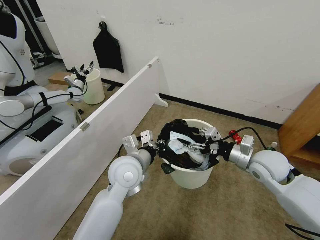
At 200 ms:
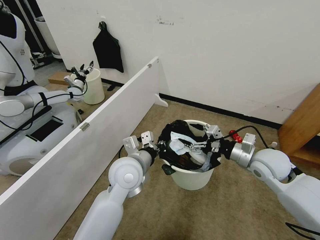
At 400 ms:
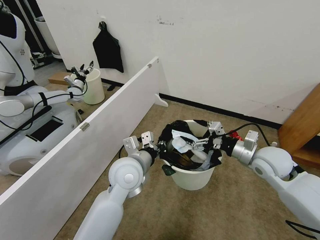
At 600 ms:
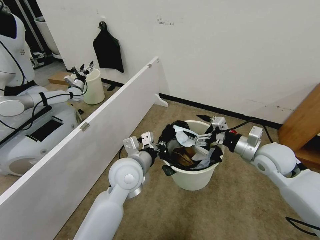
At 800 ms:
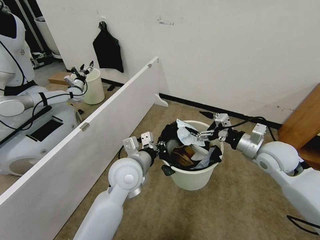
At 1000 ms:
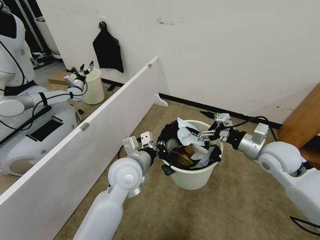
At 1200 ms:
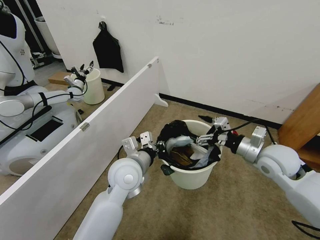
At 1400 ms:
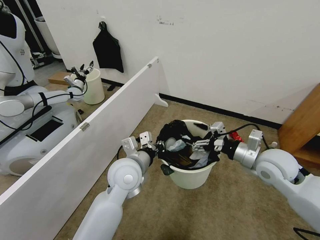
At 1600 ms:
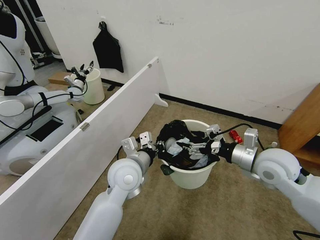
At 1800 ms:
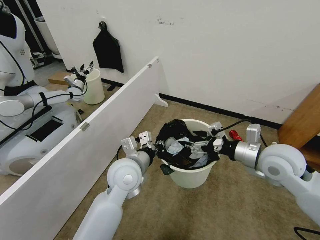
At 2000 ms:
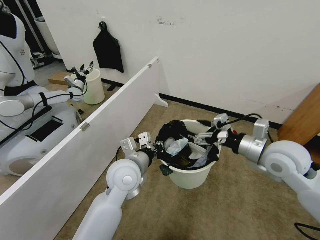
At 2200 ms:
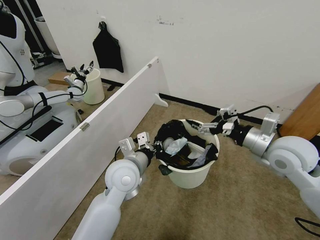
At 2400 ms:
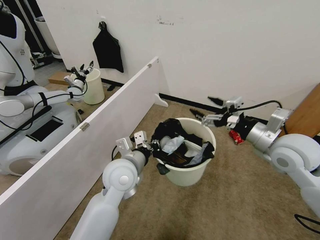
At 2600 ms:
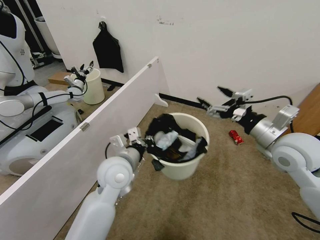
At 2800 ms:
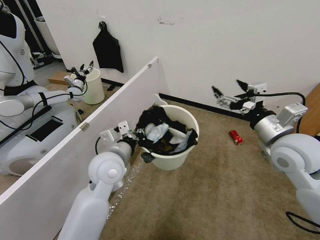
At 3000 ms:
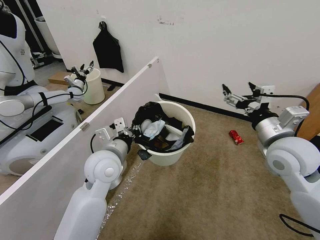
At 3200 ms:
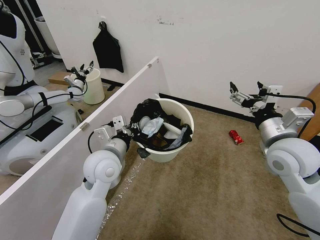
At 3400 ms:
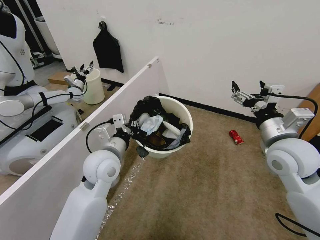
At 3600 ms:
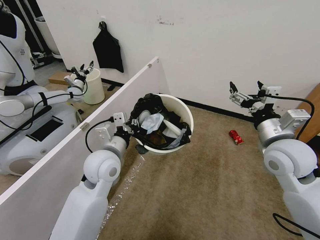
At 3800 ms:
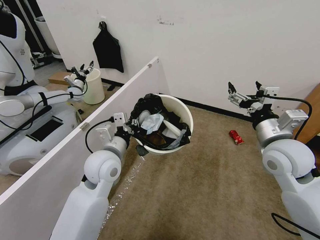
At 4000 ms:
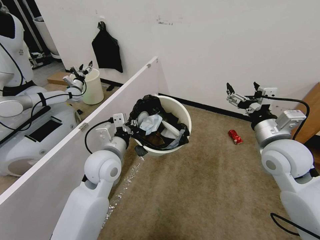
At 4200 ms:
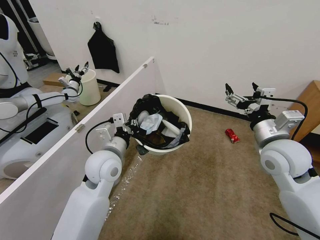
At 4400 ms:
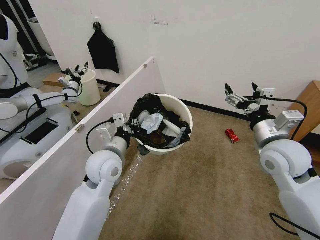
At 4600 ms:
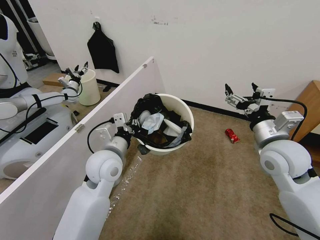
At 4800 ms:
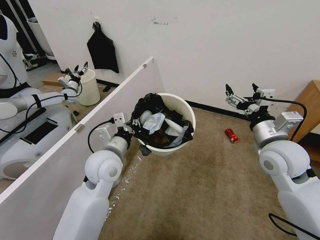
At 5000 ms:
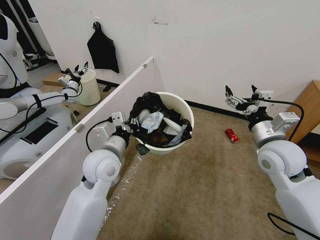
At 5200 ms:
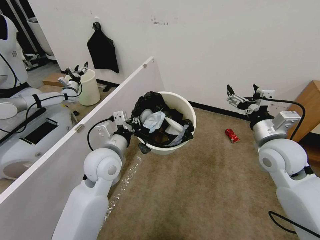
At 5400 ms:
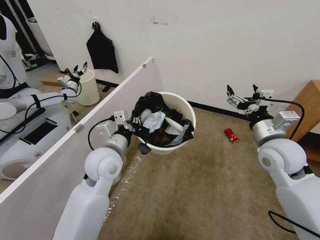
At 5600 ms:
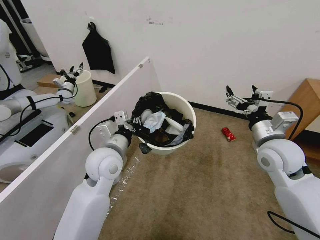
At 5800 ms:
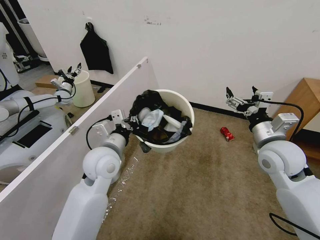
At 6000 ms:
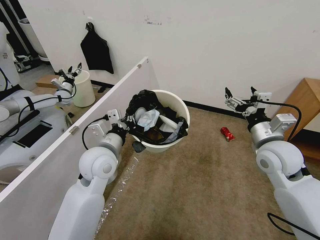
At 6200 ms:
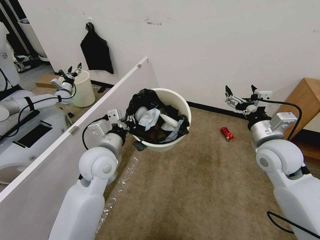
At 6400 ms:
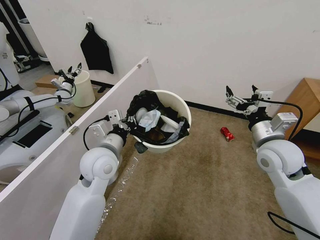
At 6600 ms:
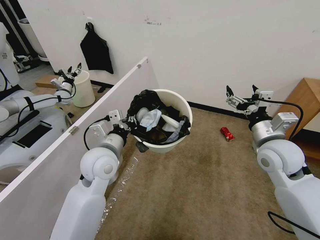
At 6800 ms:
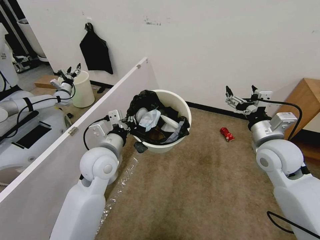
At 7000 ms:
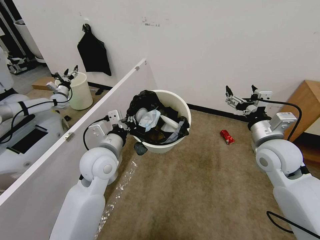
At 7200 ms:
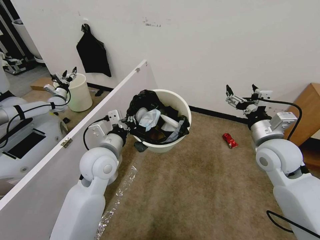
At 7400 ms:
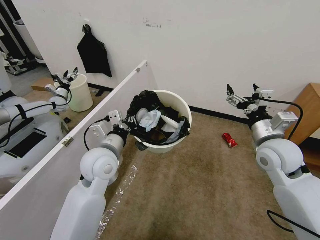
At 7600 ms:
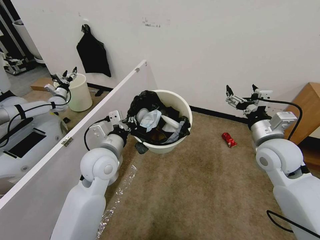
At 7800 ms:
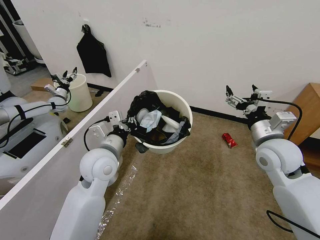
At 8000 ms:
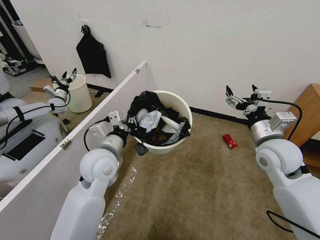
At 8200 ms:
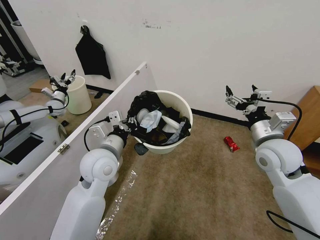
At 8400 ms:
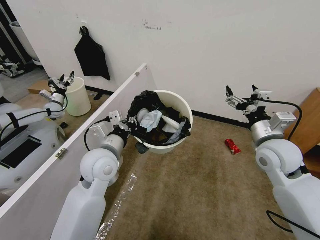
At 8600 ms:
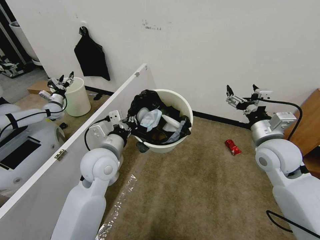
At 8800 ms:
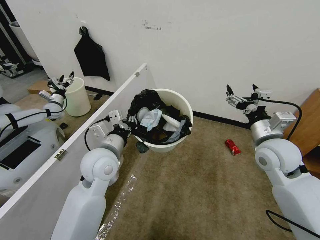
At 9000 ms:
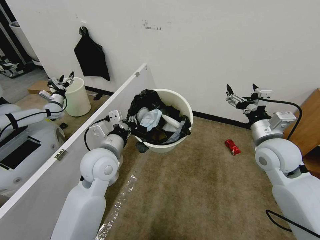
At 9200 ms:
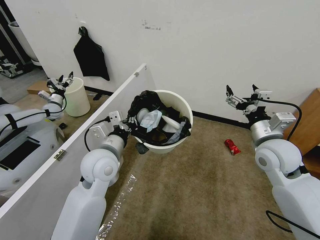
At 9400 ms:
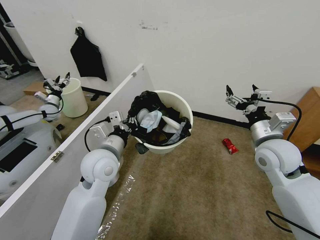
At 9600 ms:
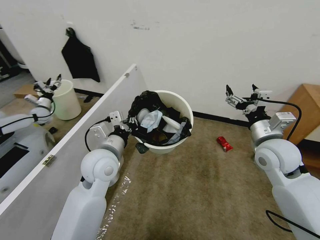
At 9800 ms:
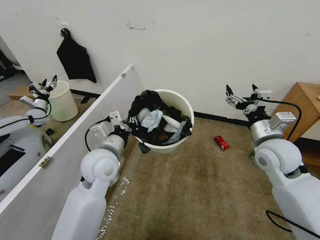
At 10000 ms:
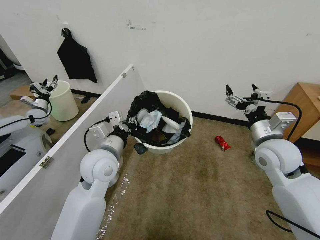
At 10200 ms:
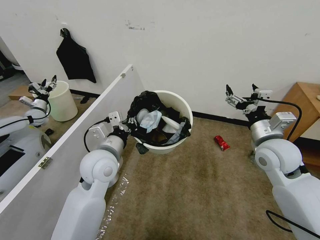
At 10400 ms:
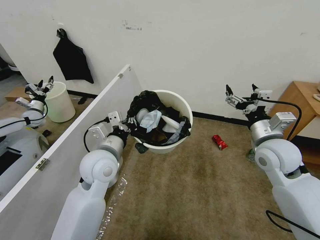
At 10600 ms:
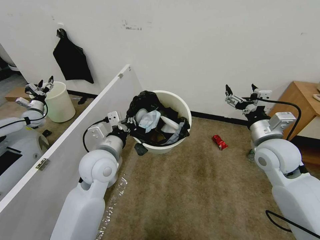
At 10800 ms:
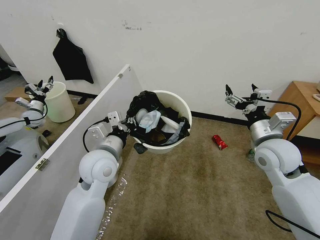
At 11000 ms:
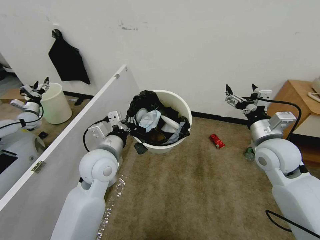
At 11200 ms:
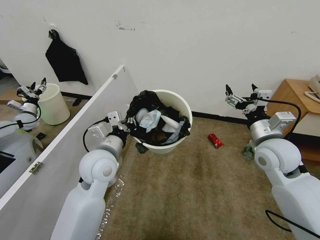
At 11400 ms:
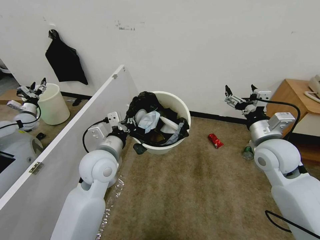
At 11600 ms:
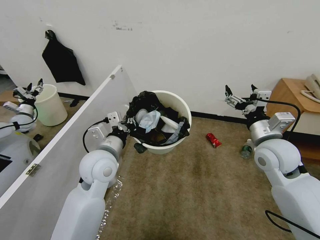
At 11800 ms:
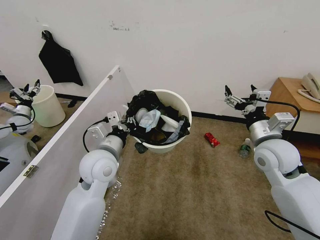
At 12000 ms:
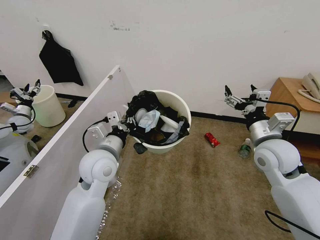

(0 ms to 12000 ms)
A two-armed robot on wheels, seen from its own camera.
Task of the whole recording: Pick up the trash bin, then pick up the garbage from the floor and place it into the trash bin.
0 ms - 1600 ms: The right gripper opens its fingers.
1600 ms - 3000 ms: The left gripper heads to the left, covering roughly 5 cm, while the right gripper moves upward, about 5 cm.
6000 ms - 9000 ms: The two grippers keep their place.
10400 ms - 12000 ms: Neither gripper changes place.

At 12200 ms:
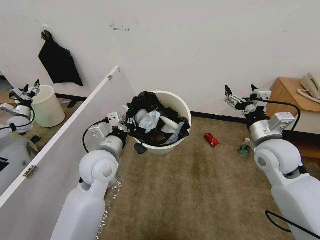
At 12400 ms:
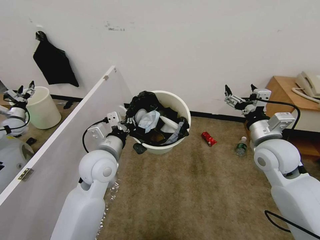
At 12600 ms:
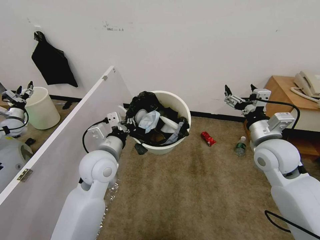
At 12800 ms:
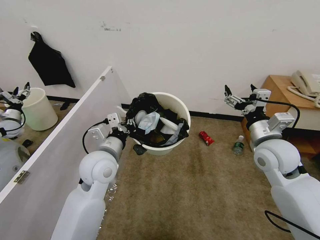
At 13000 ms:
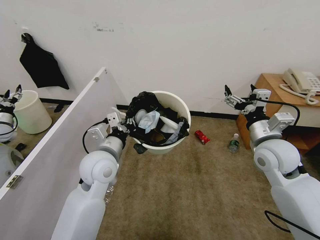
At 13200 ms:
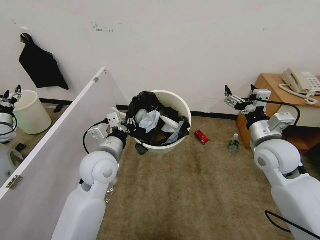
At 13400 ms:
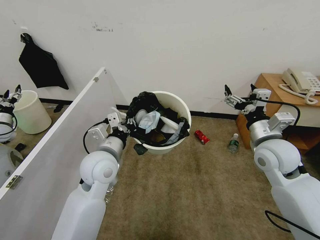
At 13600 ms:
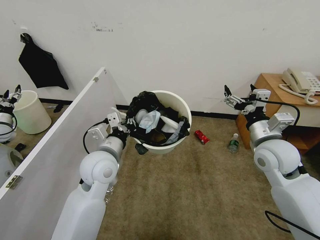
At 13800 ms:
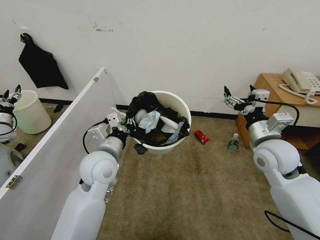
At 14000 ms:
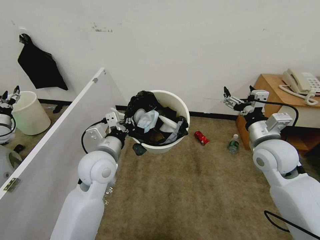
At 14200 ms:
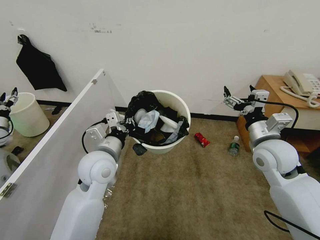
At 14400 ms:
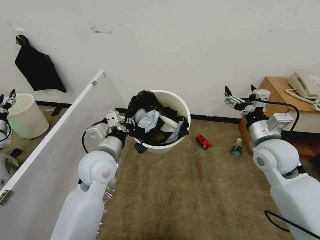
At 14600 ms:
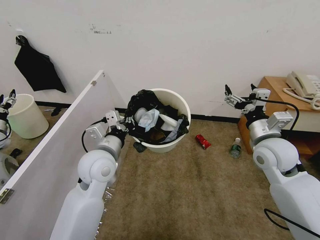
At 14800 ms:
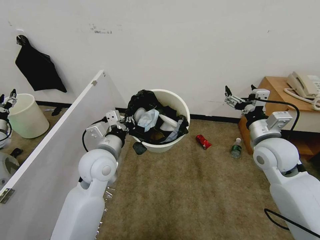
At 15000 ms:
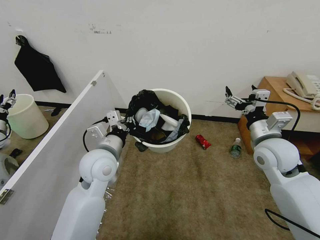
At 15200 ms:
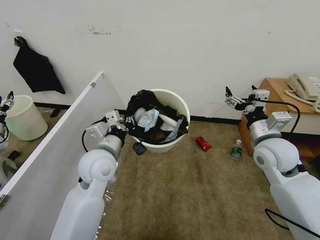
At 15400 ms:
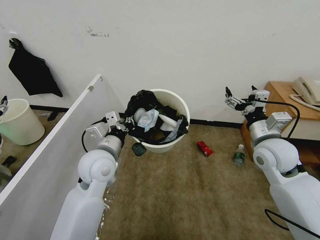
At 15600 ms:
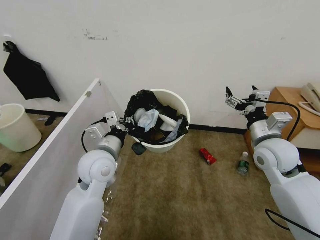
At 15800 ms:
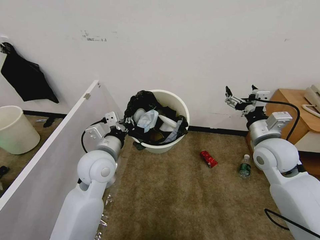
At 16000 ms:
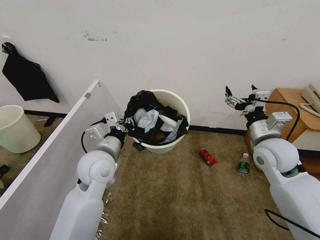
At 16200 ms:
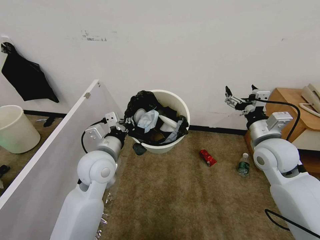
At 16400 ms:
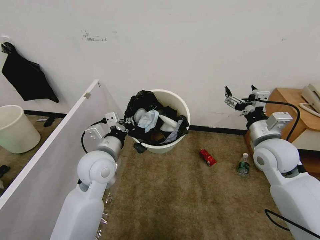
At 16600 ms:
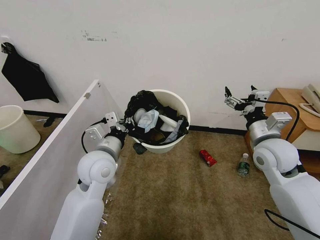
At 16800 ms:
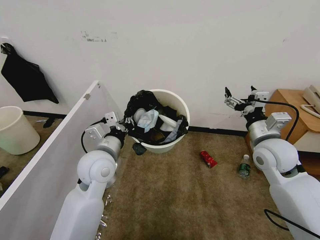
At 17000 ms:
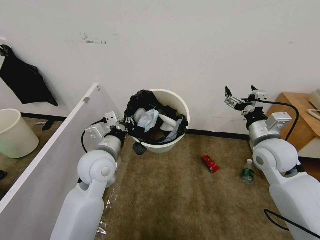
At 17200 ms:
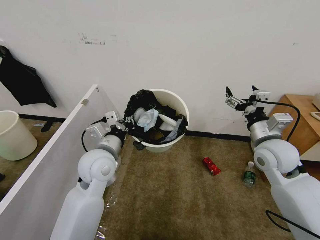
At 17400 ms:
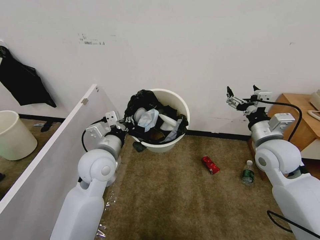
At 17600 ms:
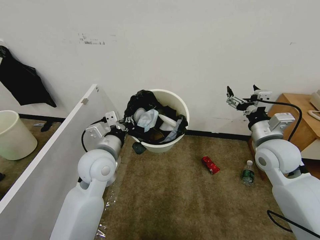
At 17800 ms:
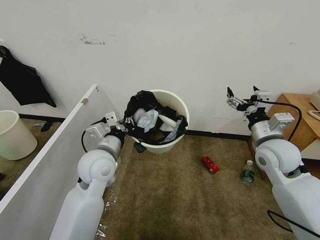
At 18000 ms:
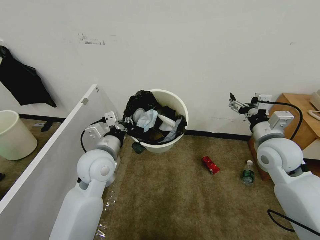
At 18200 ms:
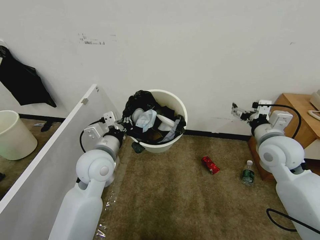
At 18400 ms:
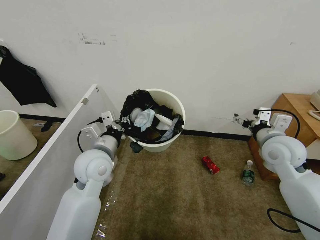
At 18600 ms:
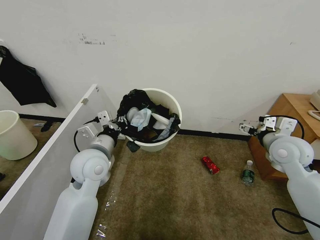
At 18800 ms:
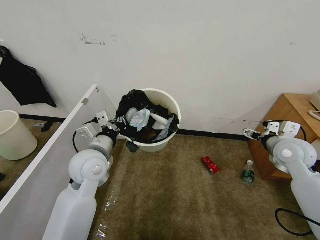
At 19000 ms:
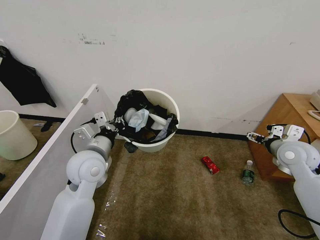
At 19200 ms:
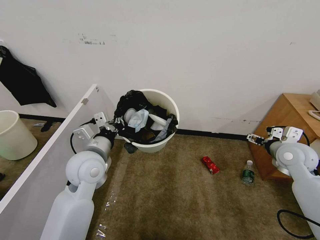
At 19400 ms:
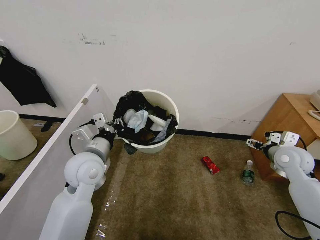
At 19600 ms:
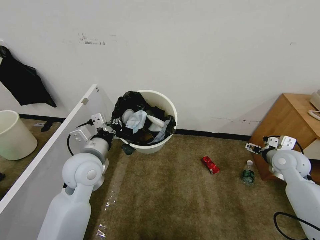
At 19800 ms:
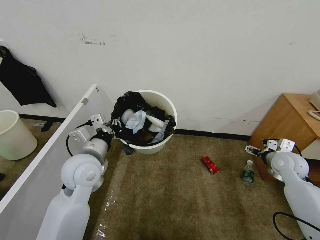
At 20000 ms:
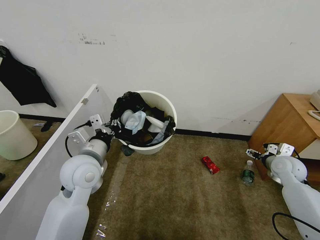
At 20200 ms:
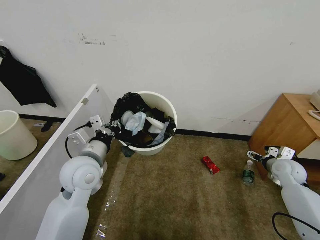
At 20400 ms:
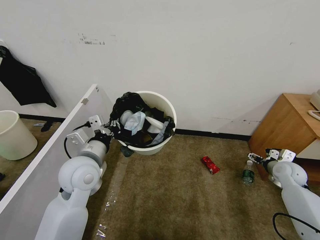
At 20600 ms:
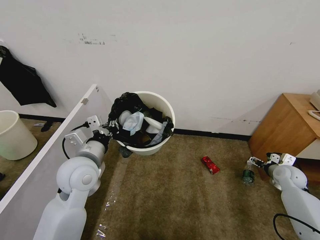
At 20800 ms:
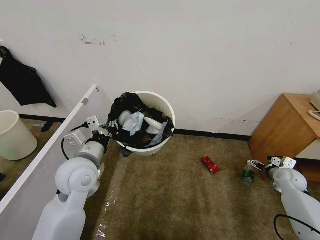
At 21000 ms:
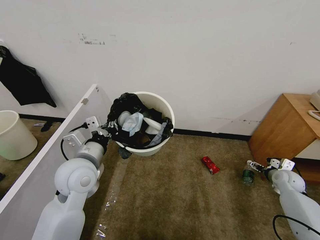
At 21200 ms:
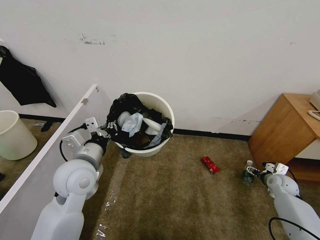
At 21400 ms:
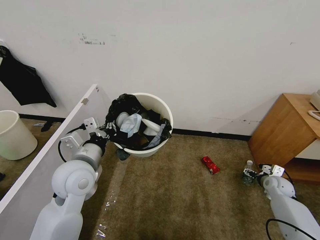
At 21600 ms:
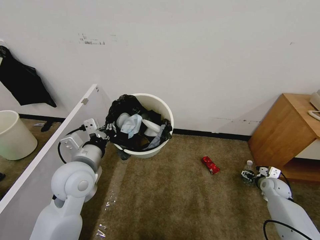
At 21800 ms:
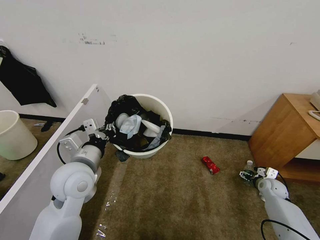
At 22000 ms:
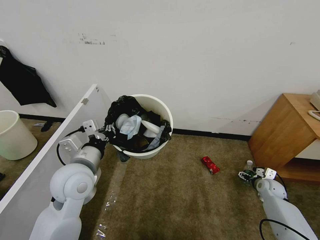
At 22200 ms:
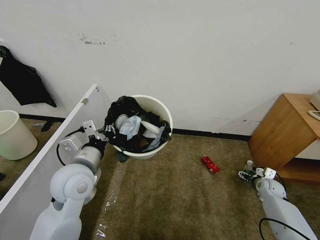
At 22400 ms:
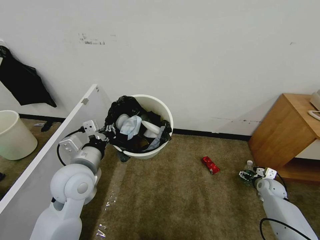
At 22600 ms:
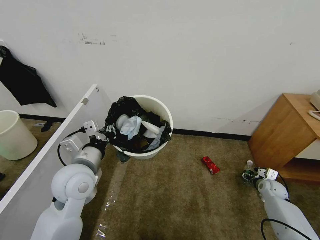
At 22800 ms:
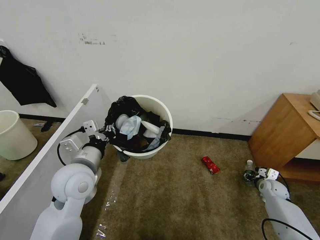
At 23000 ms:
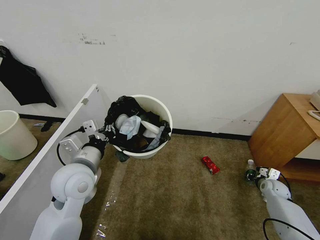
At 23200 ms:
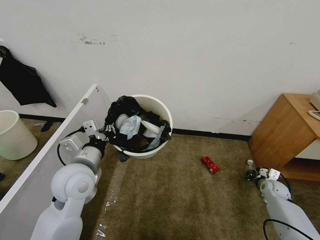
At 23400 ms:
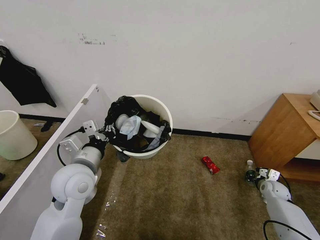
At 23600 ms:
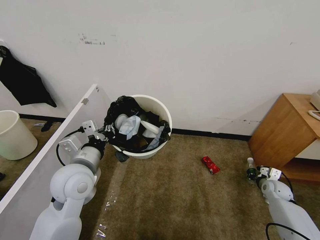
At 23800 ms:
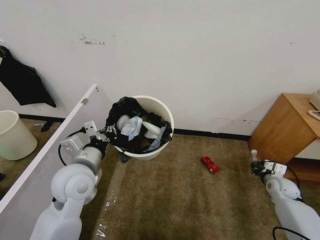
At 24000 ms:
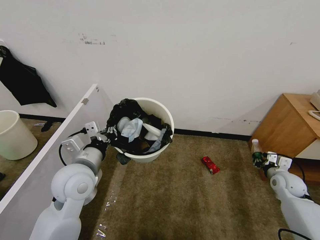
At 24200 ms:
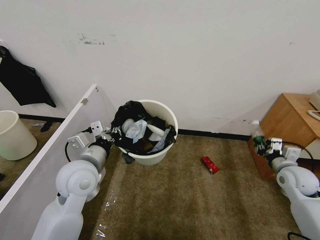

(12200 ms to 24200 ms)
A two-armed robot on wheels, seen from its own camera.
Task of the whole recording: Pick up the trash bin, then pick up the garbage from the floor and place it into the trash bin.
12200 ms - 16600 ms: Neither gripper changes place.
18200 ms - 19800 ms: The right gripper heads downward and to the right, covering roughly 15 cm.
19800 ms - 21200 ms: The right gripper shifts approximately 15 cm downward and to the right.
21200 ms - 22600 ms: The right gripper heads downward, covering some 5 cm.
22600 ms - 24200 ms: The right gripper heads upward, covering approximately 15 cm, and closes.
